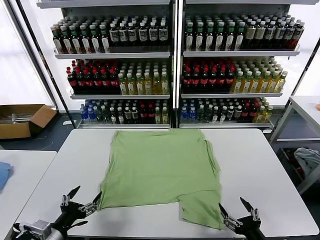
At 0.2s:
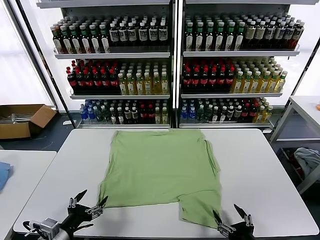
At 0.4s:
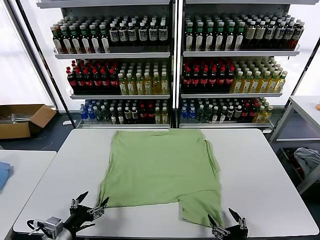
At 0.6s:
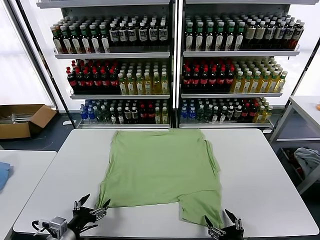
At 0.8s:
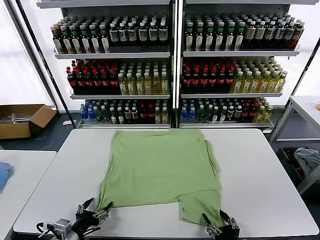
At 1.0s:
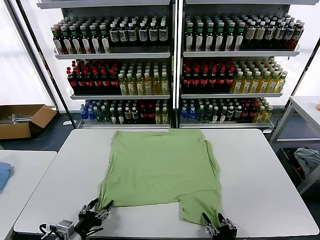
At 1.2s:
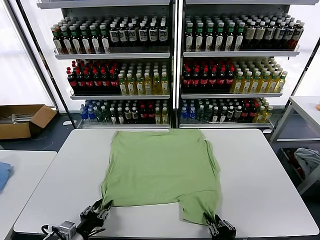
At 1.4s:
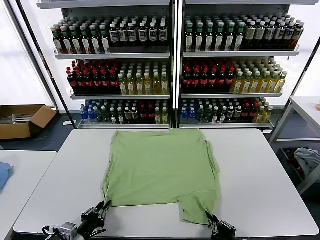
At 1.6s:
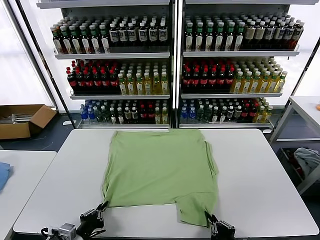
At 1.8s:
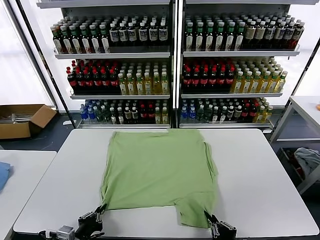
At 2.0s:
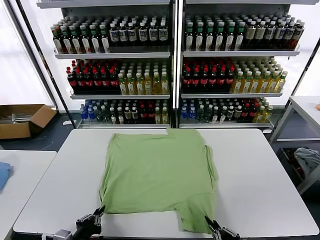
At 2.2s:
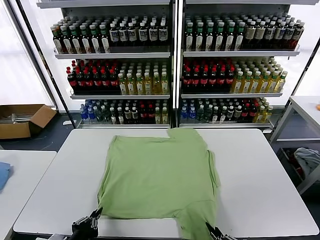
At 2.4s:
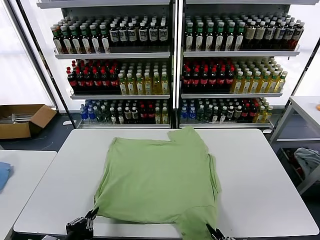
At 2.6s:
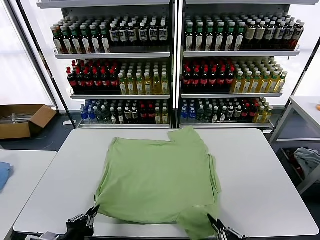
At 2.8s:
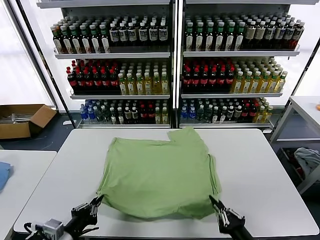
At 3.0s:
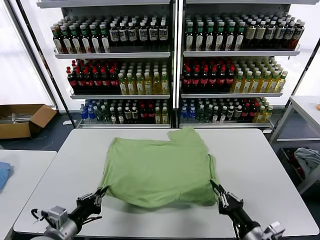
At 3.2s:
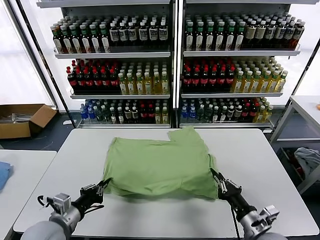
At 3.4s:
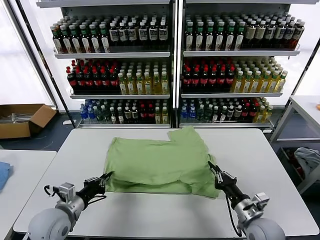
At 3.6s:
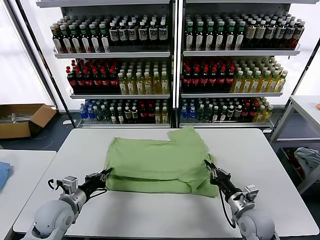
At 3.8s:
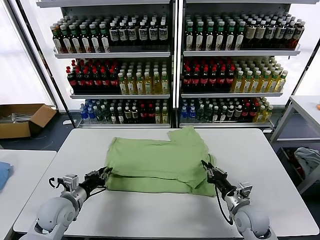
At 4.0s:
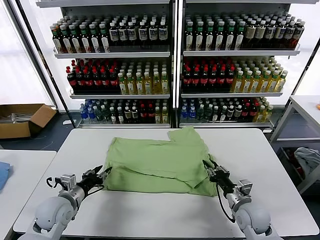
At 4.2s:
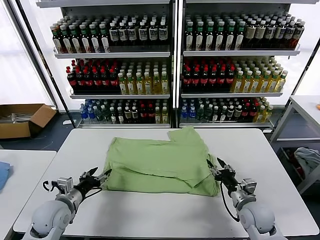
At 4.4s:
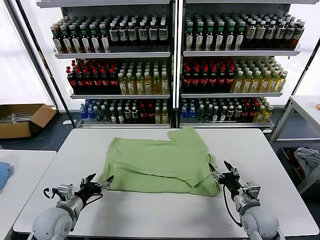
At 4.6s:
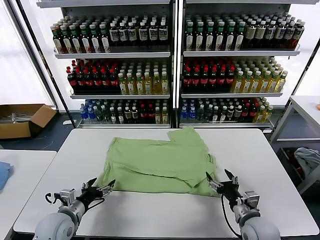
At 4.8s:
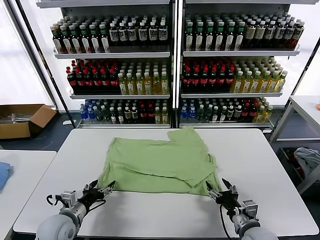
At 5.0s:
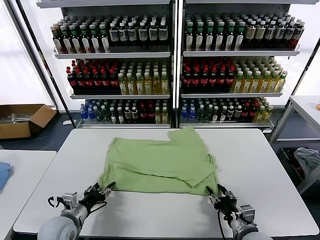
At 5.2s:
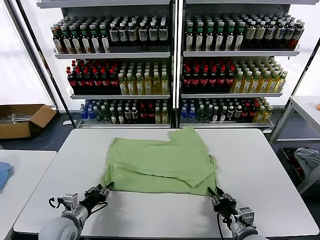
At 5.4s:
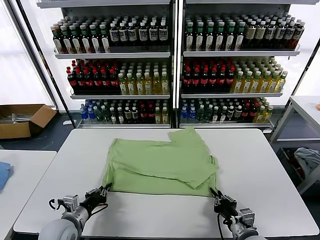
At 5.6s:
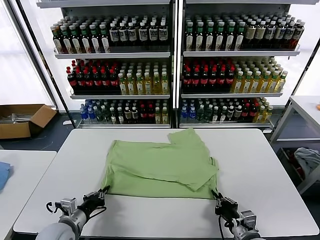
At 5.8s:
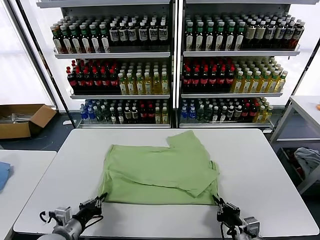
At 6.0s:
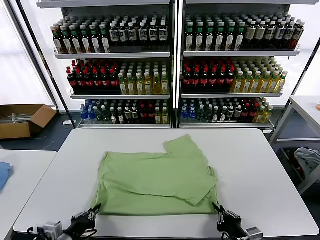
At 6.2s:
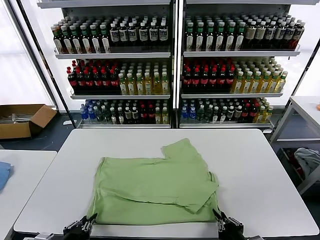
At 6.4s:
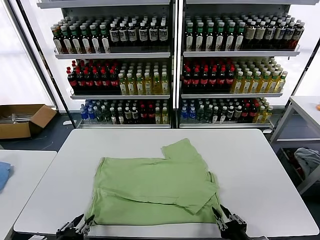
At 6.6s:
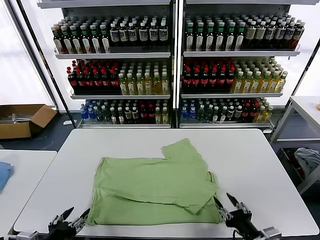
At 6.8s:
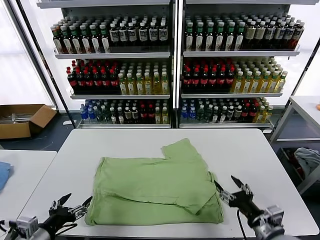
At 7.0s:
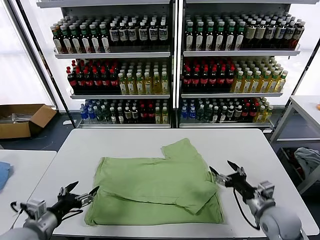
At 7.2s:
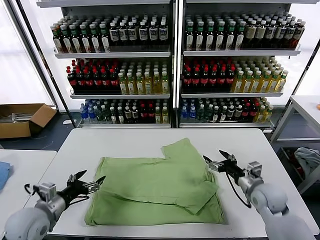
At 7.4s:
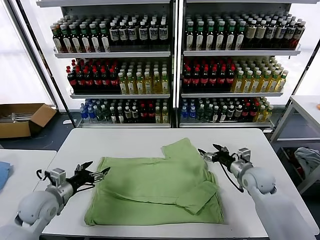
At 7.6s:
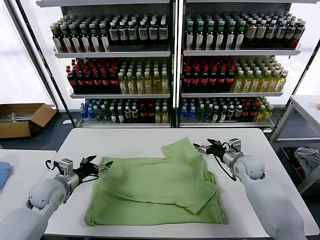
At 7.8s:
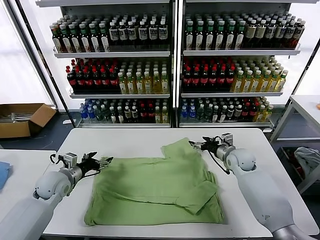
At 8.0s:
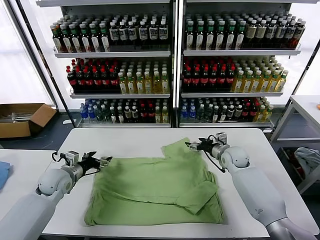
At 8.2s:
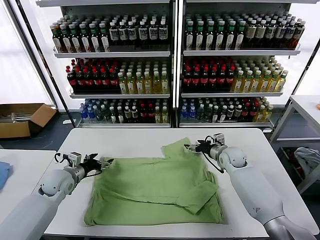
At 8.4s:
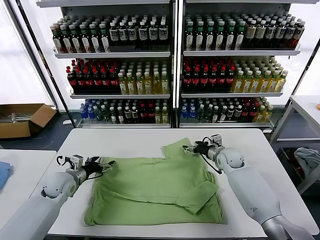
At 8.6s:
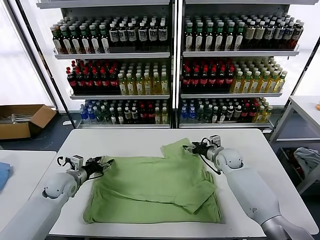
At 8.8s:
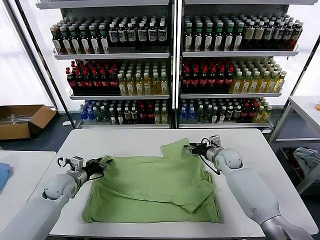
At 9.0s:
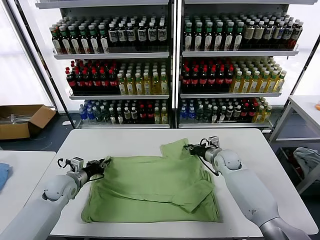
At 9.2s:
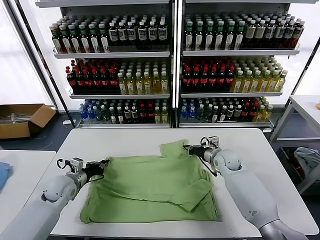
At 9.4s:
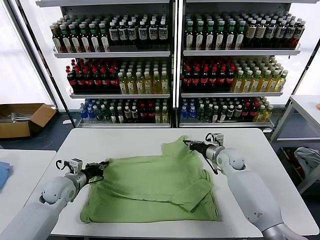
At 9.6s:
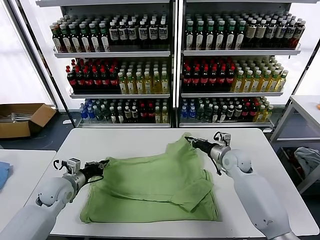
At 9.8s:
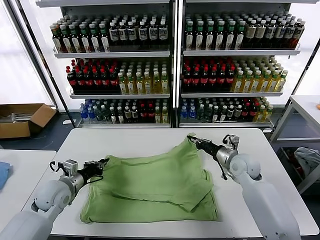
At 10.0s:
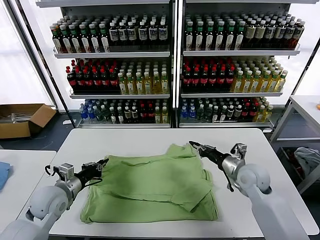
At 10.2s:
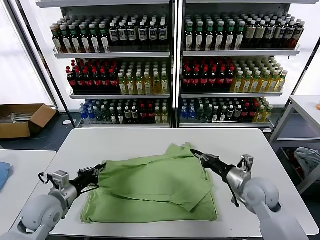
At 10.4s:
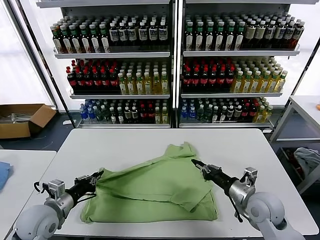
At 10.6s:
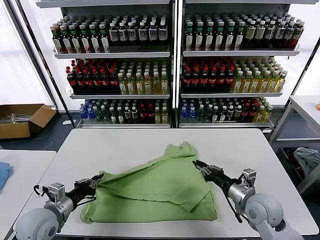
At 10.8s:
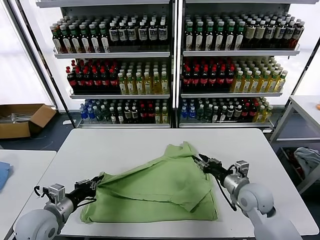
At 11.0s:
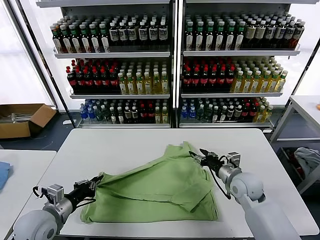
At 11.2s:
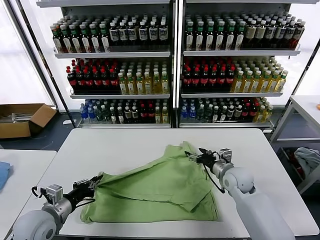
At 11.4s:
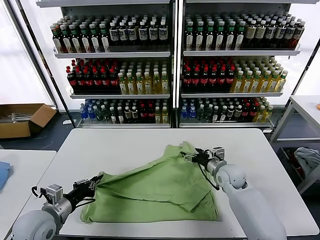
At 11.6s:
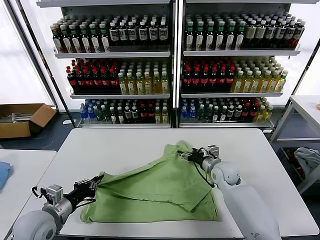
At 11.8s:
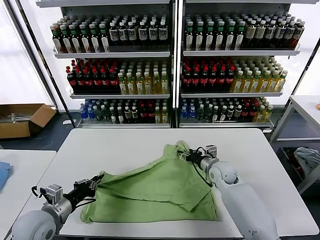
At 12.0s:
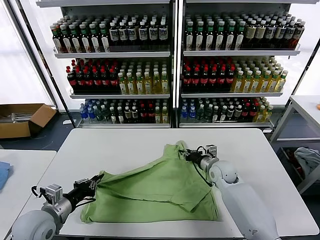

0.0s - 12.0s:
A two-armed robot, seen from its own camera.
Task of the whole recording: fold and organize the clothes.
Step, 0.0s - 1.4s: use both grippers simultaneously to clamp the lower edge of the clothing fabric.
Step, 1.8s - 4.0s: use both grippers to drag the lower edge of the fabric forward and fold it over the upper edge.
Step, 4.4s - 6.4s: Drag the clothes downward with both gripper.
Step, 6.8s - 9.0s: use both grippers simultaneously to clamp the upper edge of the clothing fabric.
1.6s - 3.0s: The left gripper goes about 5 cm upward, while the right gripper shifts some 5 cm forward.
3.0s - 4.4s: The right gripper is displaced forward by some 10 cm, and opens, while the left gripper heads forward and downward, covering some 10 cm, and opens up.
4.4s - 6.0s: The grippers both shift backward by approximately 15 cm. The left gripper closes its fingers; the right gripper closes its fingers.
6.0s - 7.6s: The right gripper is displaced forward by approximately 35 cm, and opens its fingers. The left gripper is displaced forward by roughly 20 cm, and opens.
7.6s - 9.0s: The left gripper changes place by roughly 5 cm, and closes its fingers. The right gripper heads to the left, covering about 5 cm, and closes up.
9.0s - 10.4s: The right gripper is displaced backward by roughly 20 cm. Meanwhile the left gripper goes some 15 cm backward and upward.
10.4s - 12.0s: The right gripper is displaced forward by about 15 cm, and opens.

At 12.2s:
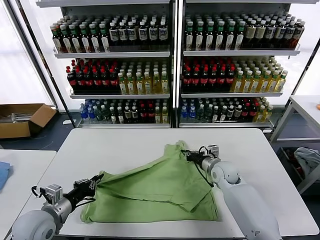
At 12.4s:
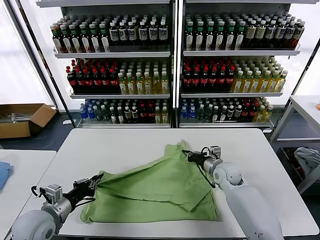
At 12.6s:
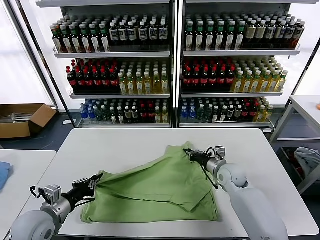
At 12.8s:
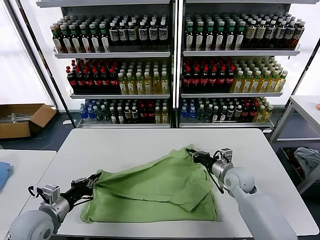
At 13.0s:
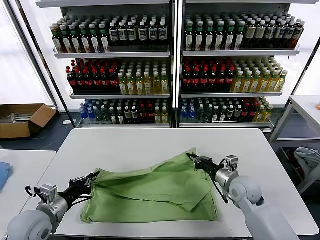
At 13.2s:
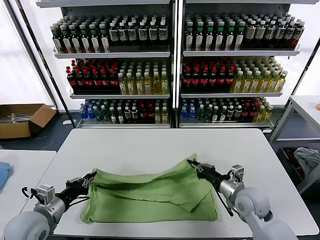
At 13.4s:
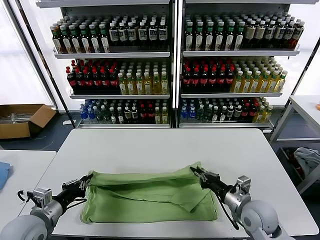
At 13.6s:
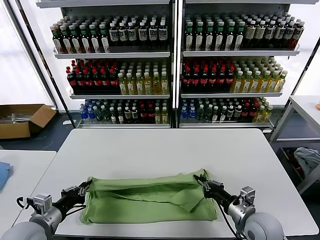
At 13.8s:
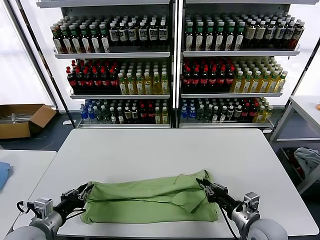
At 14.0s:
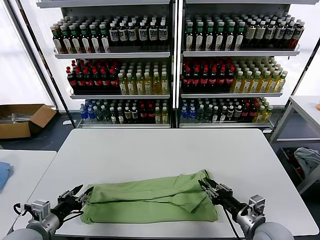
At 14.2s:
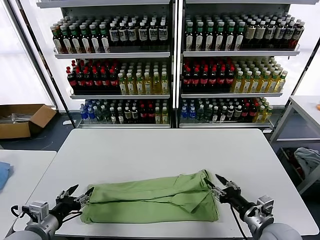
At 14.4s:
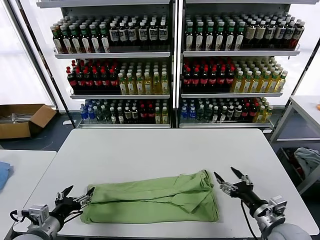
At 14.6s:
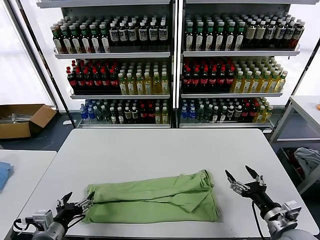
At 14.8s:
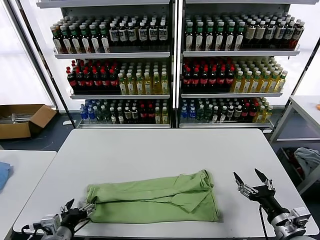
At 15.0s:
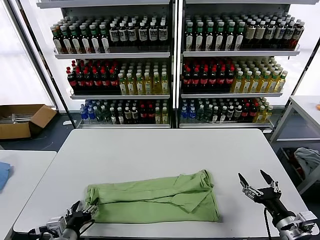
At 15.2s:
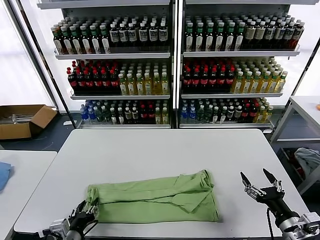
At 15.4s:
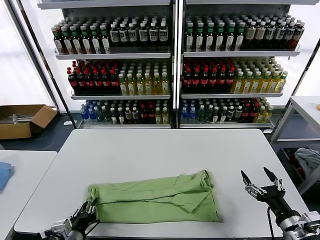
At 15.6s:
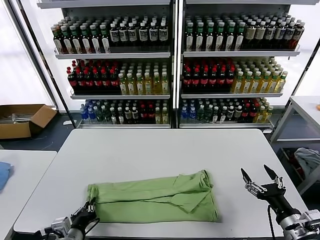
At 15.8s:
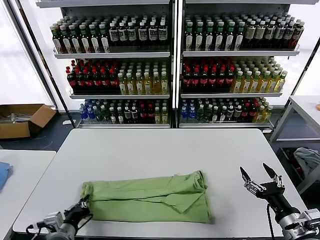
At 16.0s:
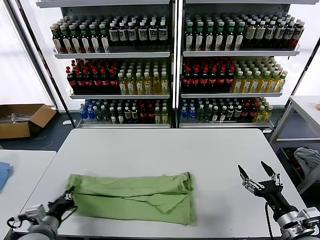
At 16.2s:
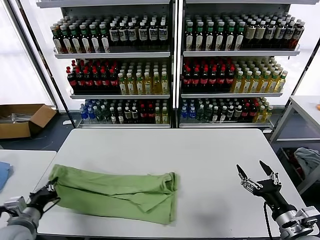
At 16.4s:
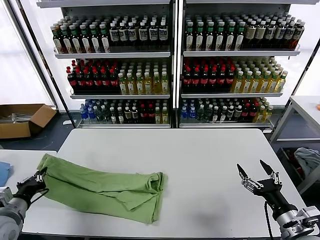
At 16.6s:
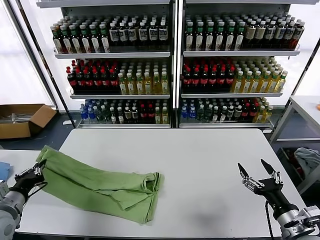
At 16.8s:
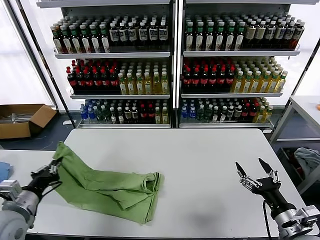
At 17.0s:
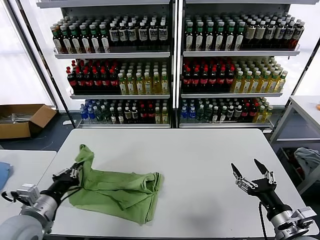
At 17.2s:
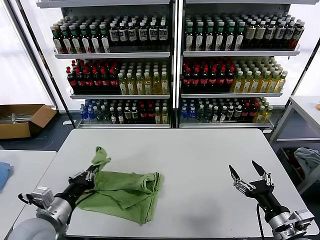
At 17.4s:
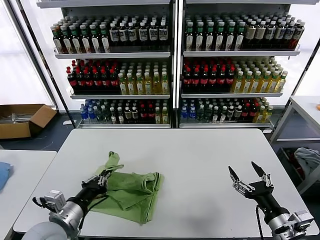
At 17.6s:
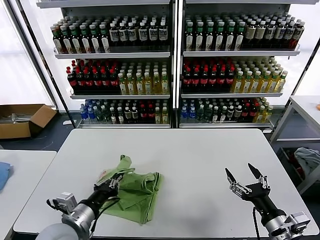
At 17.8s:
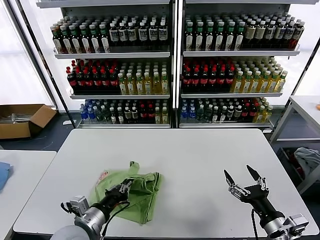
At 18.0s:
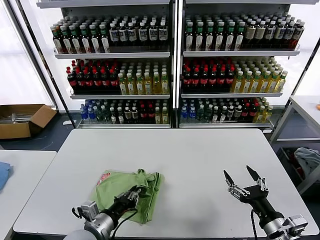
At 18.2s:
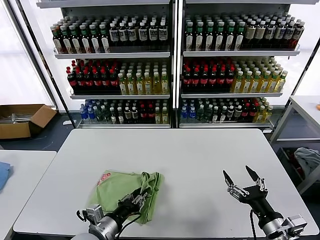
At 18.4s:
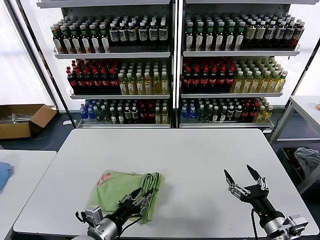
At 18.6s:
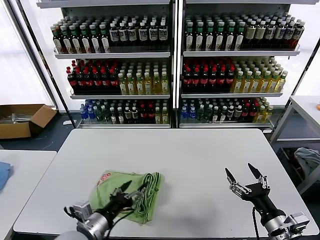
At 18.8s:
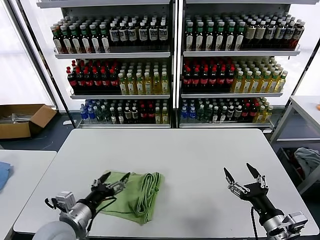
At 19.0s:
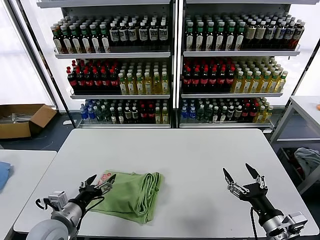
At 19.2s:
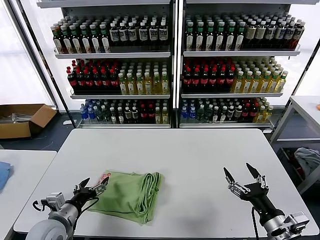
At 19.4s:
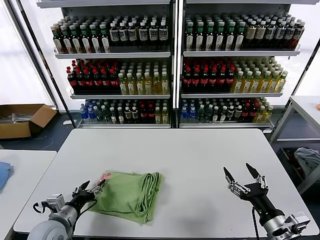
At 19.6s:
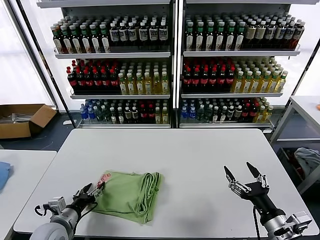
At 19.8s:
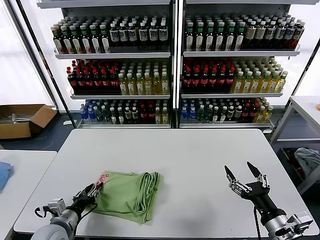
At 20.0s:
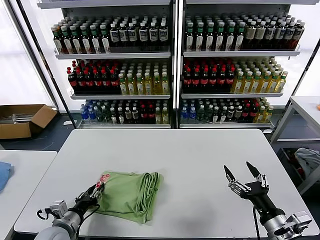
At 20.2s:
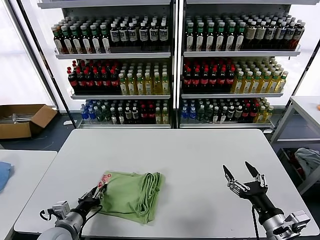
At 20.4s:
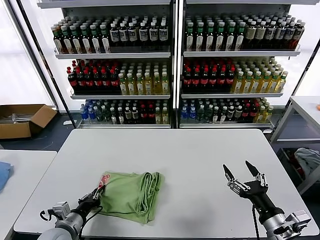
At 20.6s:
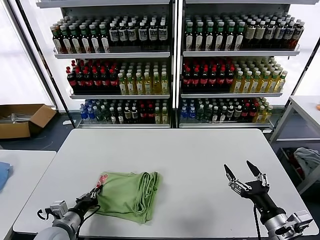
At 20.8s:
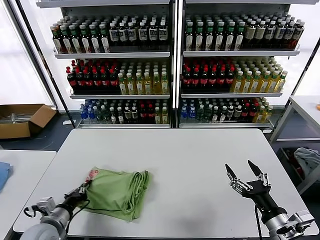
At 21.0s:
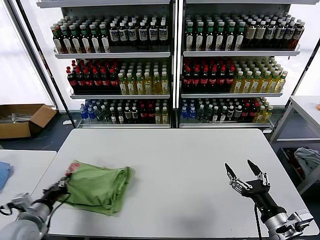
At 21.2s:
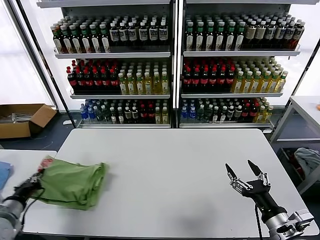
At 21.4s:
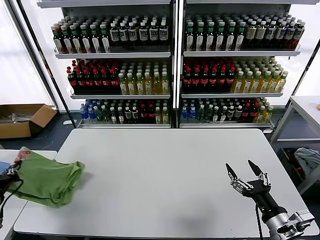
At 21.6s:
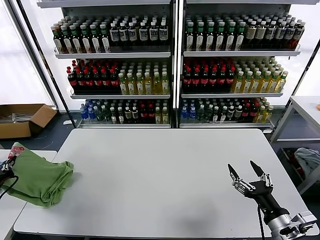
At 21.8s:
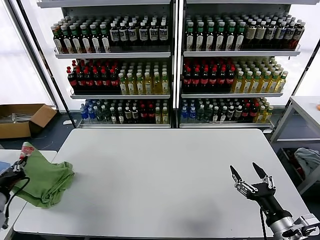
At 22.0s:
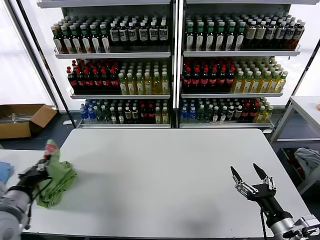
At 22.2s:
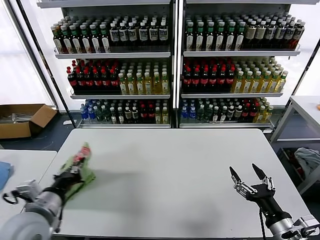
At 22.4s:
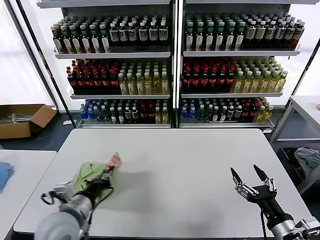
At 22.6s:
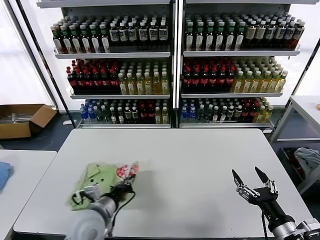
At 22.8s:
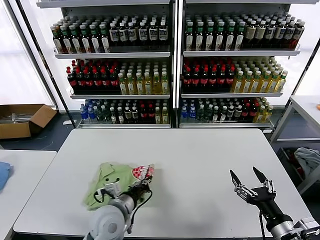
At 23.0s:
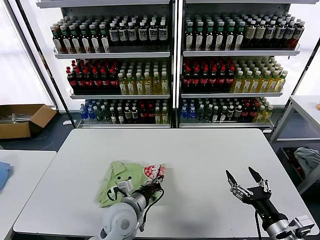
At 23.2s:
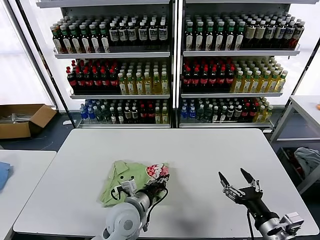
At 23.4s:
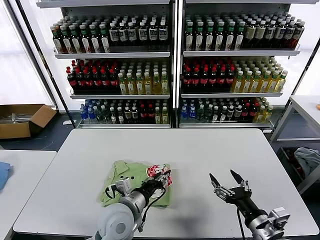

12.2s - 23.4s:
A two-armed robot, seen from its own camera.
Task of the whole recording: fold and organize the clothes.
Step, 12.2s - 14.2s: use both grippers to drag the upper edge of the fabric backward and fold it over the lower edge.
Step, 14.4s - 15.6s: use the left gripper to clamp the left edge of the fabric.
Step, 15.8s - 18.4s: use the left gripper to drag the left edge of the fabric to the left and folds it over the right edge.
Step, 18.6s - 23.4s: Flip the folded clothes over with left gripper.
12.2s - 13.8s: The right gripper moves backward, about 20 cm.
13.8s - 15.4s: The left gripper moves to the right and downward, roughly 10 cm, and opens, then closes again, while the right gripper goes some 10 cm to the right and backward, and opens its fingers.
15.4s - 17.0s: The left gripper goes some 15 cm upward and to the left, and closes up.
17.0s - 18.6s: The left gripper is displaced to the right by approximately 15 cm, and opens.
18.6s - 20.2s: The left gripper heads to the left and downward, covering approximately 15 cm, and closes its fingers.
20.2s - 21.8s: The left gripper heads upward and to the left, covering roughly 20 cm, and closes up.
21.8s - 23.4s: The left gripper is displaced to the right by about 35 cm, and opens its fingers.
